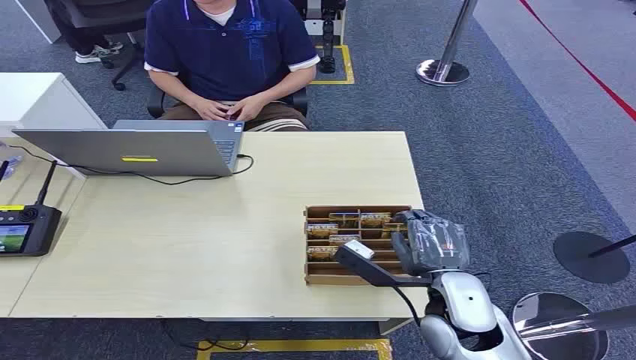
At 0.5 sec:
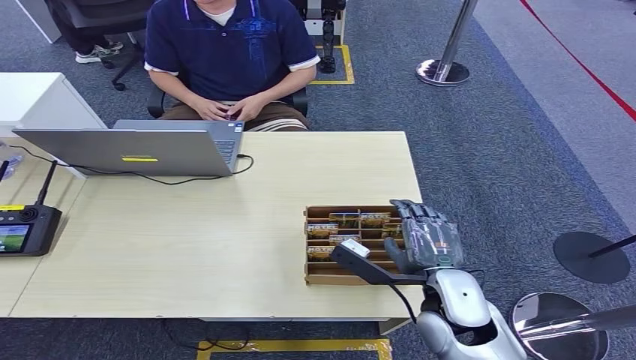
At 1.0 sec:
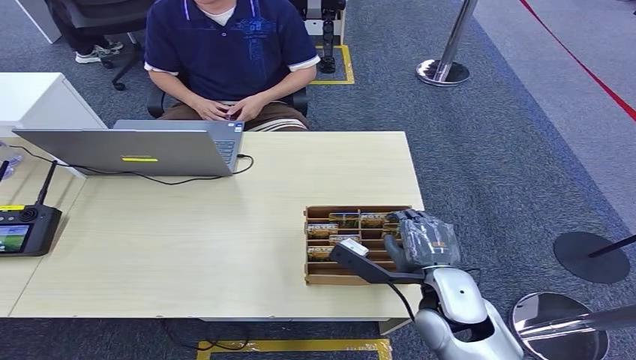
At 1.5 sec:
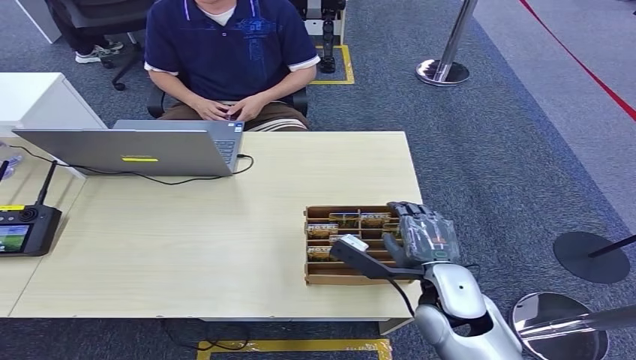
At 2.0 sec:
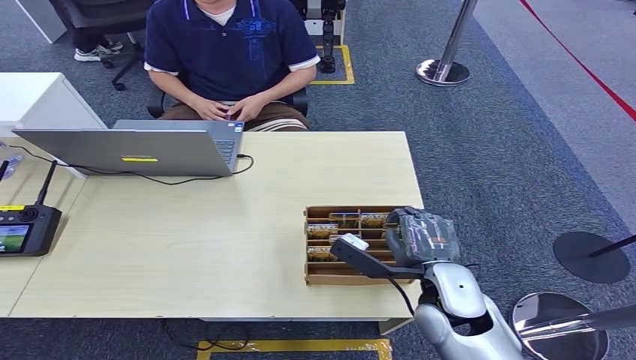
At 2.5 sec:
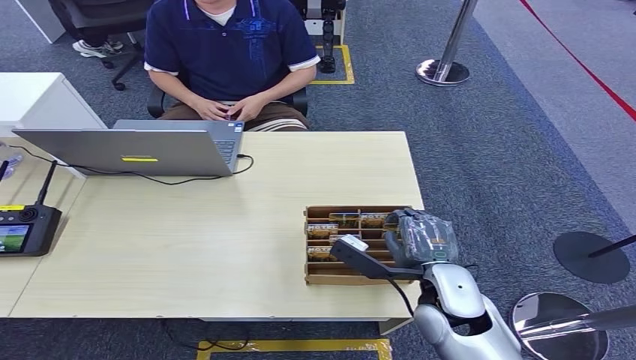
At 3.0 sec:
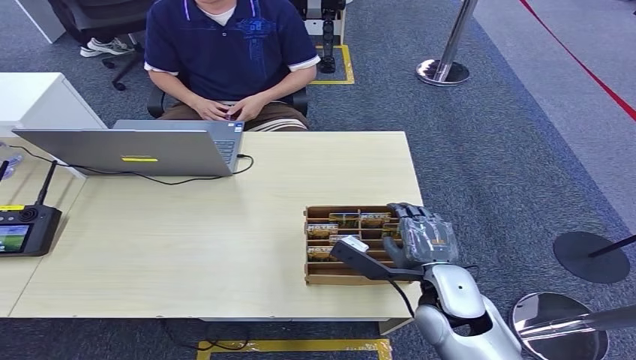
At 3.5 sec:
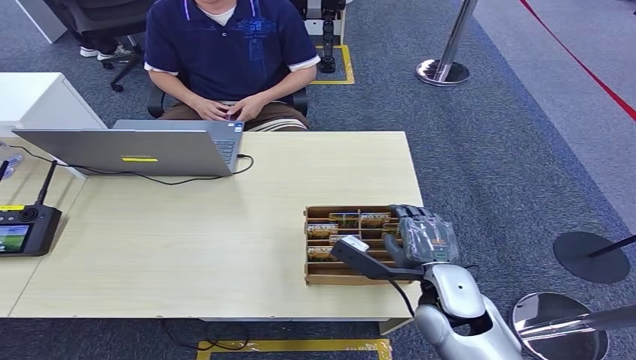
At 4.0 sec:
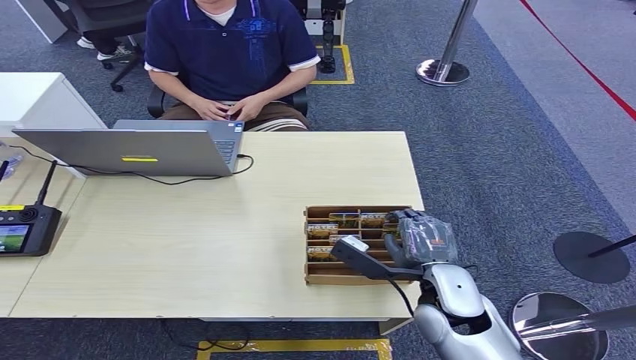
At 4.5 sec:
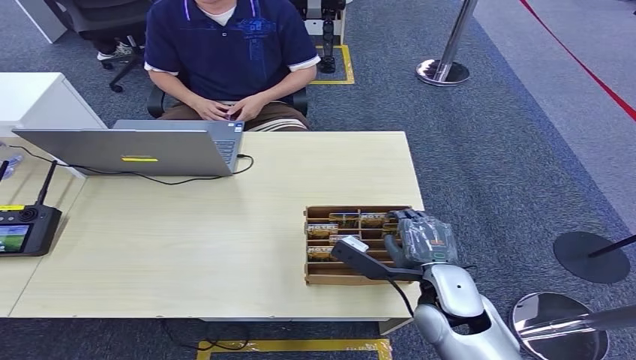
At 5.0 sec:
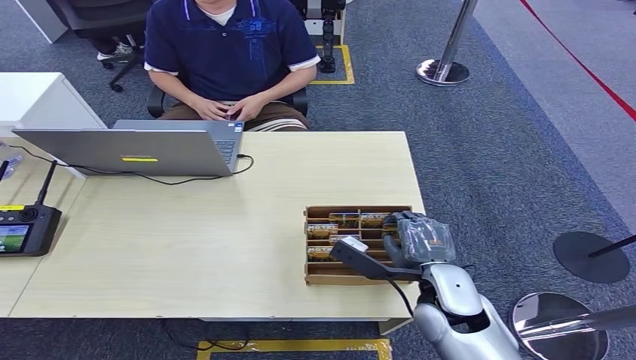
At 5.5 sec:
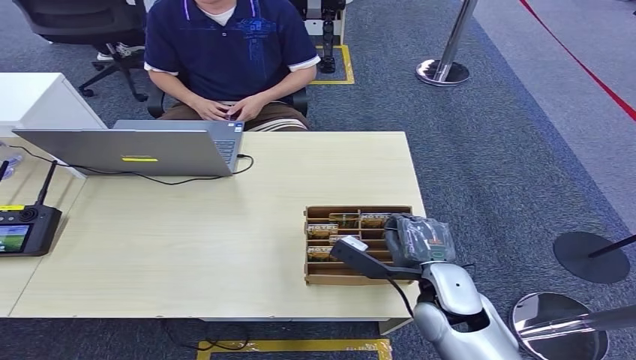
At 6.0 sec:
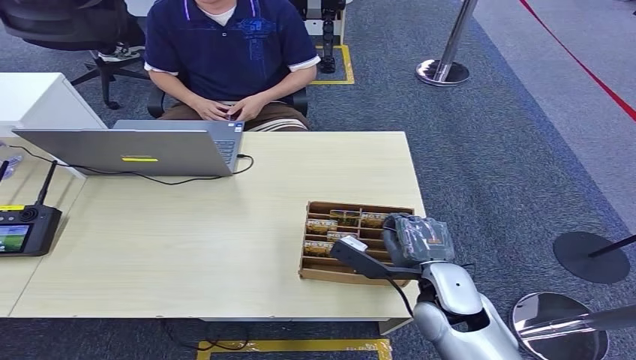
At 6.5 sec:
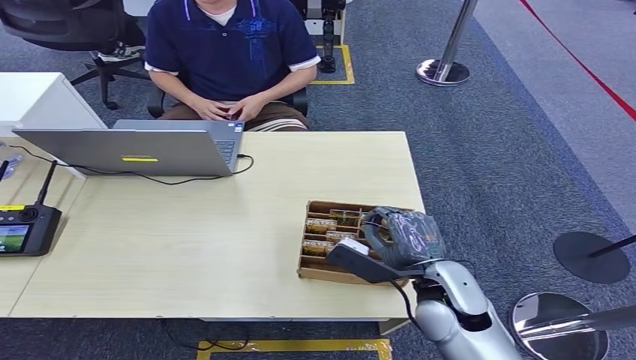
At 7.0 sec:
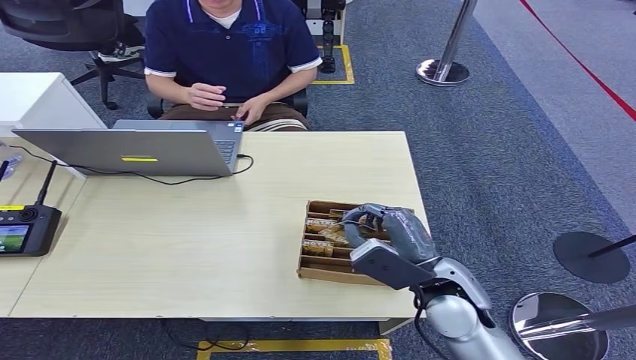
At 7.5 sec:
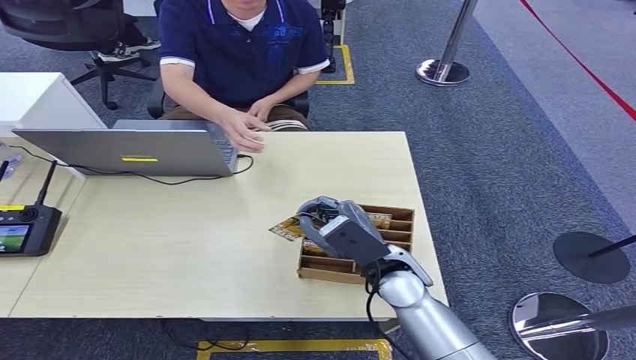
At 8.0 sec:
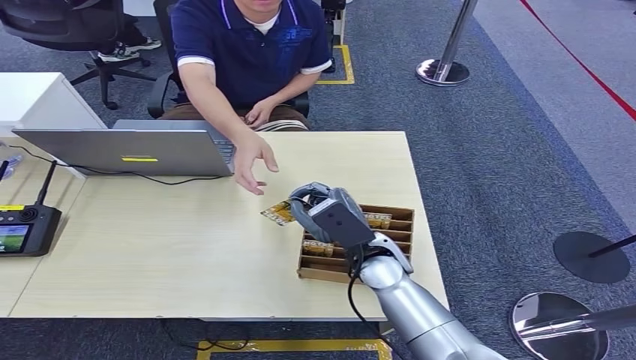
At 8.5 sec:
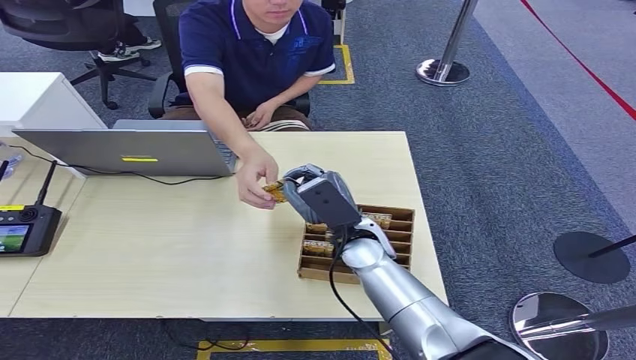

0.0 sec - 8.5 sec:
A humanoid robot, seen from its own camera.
Step, 0.0 sec - 5.5 sec: Pick up the room card from the card holder.
Step, 6.0 sec - 8.5 sec: Hand the room card to the target.
2.0 sec - 4.0 sec: Neither hand changes place.
4.0 sec - 6.5 sec: There are only small adjustments of the hands.
6.5 sec - 8.5 sec: The right hand is displaced to the left and forward by roughly 15 cm.

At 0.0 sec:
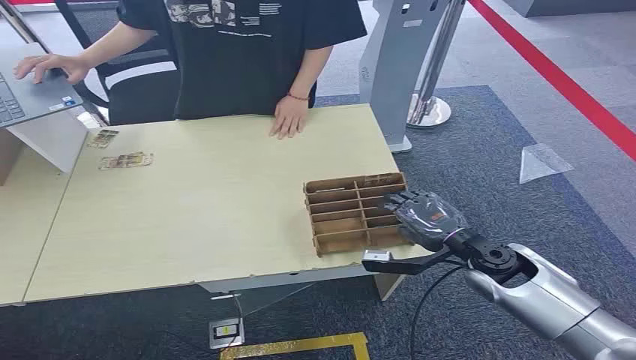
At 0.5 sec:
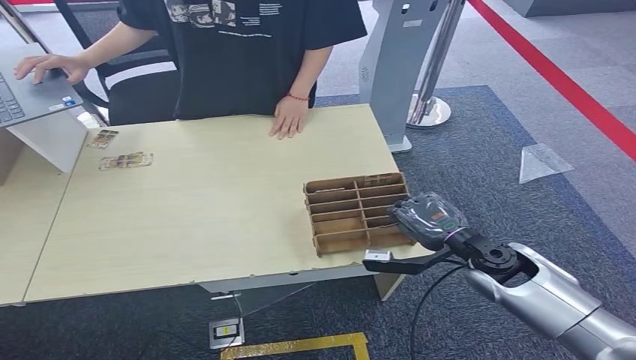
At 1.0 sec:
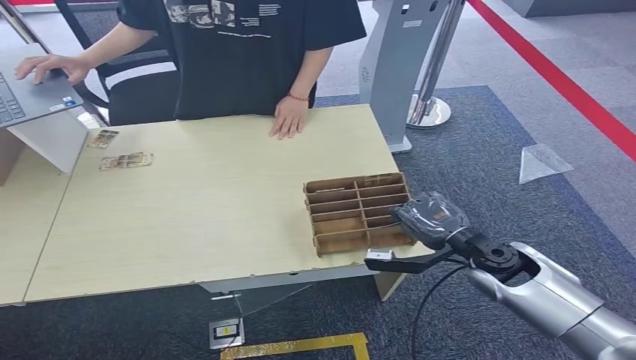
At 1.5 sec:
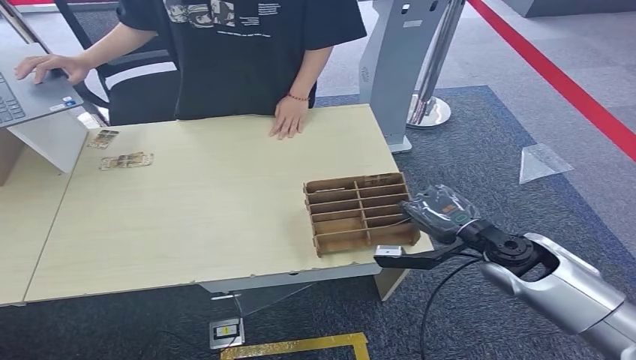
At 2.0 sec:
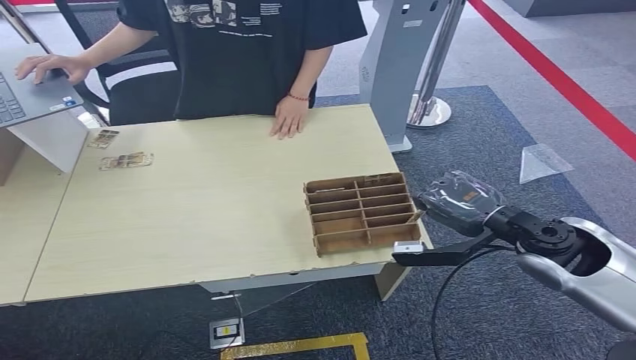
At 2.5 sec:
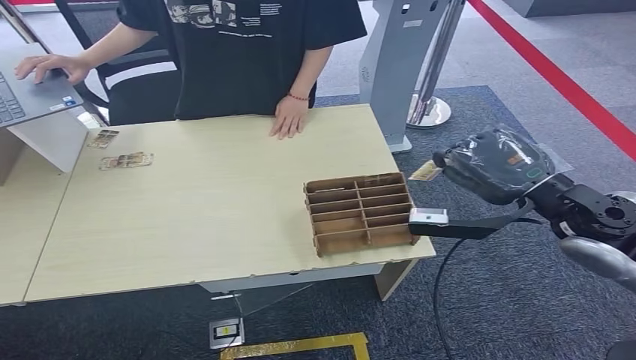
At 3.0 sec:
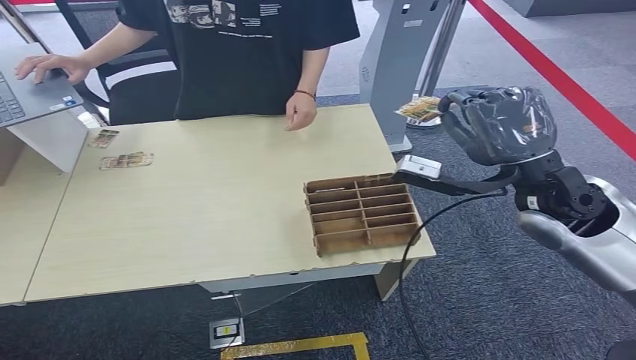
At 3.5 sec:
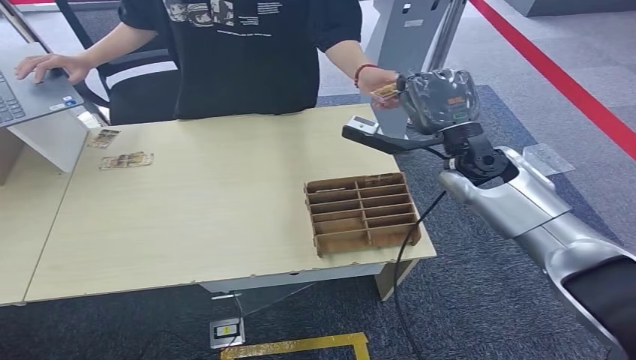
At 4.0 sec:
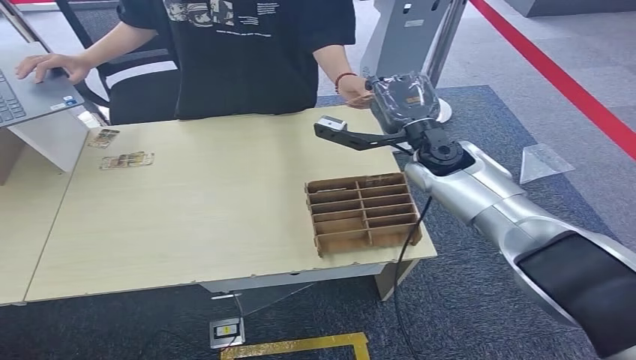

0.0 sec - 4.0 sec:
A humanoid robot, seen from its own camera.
Step, 0.0 sec - 2.5 sec: Pick up the room card from the card holder.
Step, 3.0 sec - 4.0 sec: Hand the room card to the target.
2.0 sec - 4.0 sec: The right hand heads forward and to the left, covering some 20 cm.
